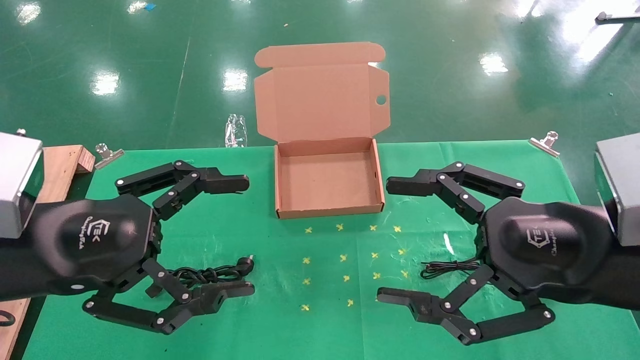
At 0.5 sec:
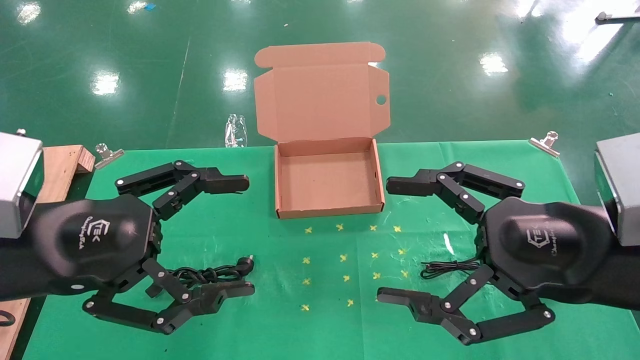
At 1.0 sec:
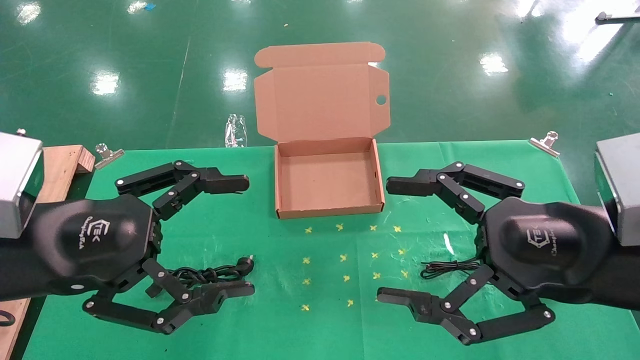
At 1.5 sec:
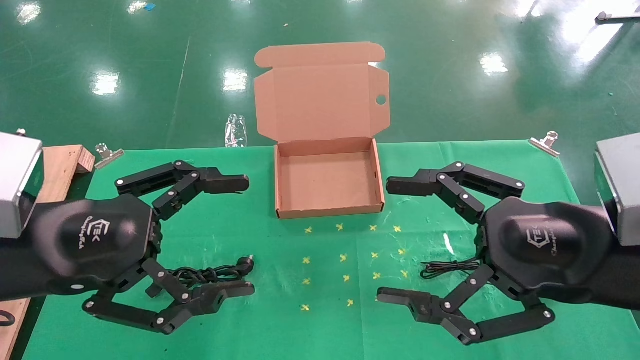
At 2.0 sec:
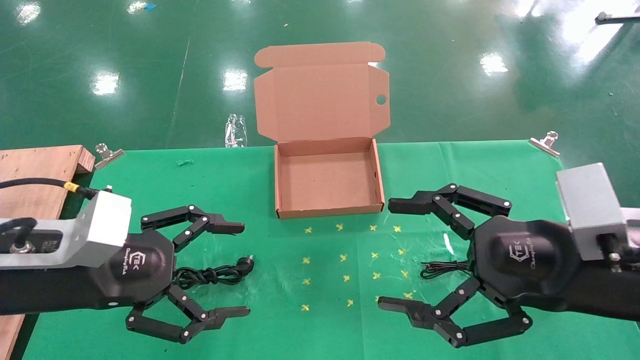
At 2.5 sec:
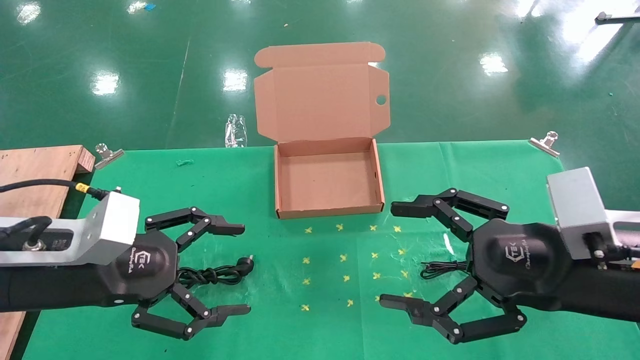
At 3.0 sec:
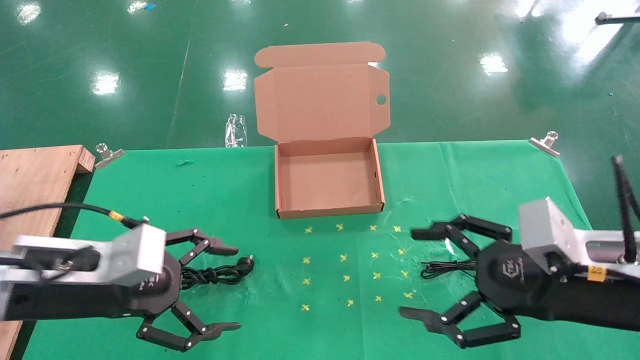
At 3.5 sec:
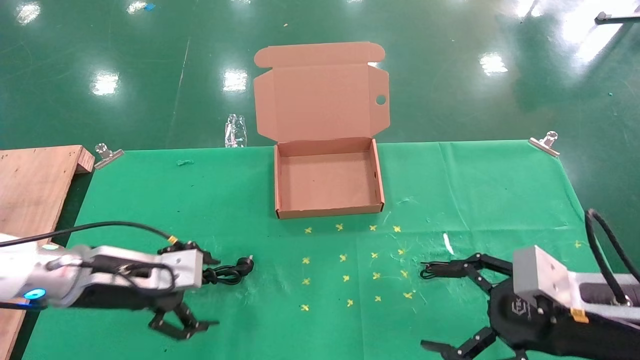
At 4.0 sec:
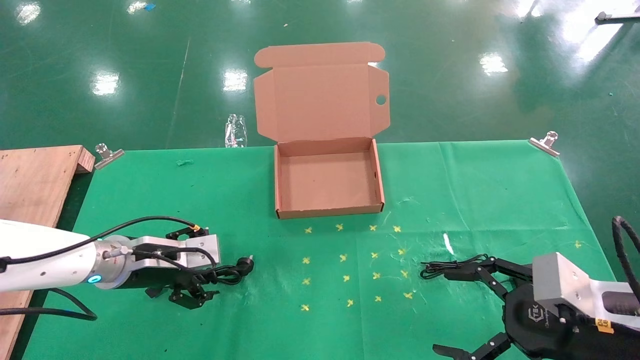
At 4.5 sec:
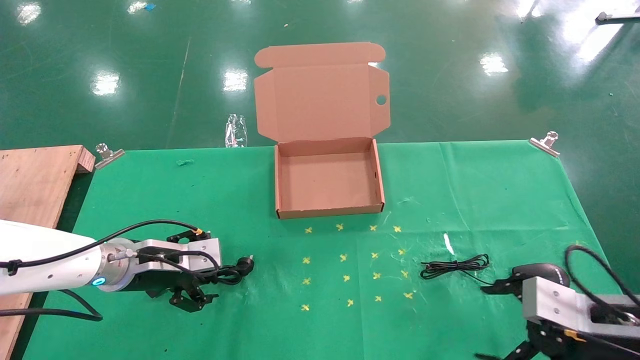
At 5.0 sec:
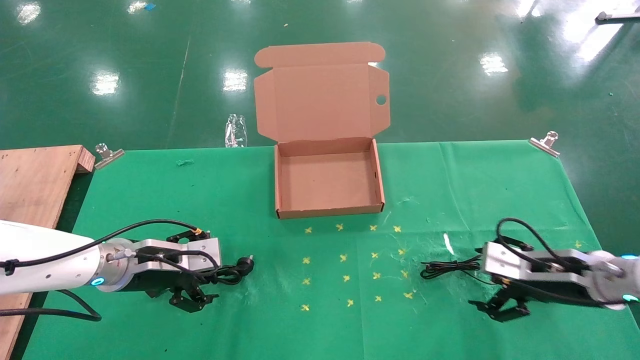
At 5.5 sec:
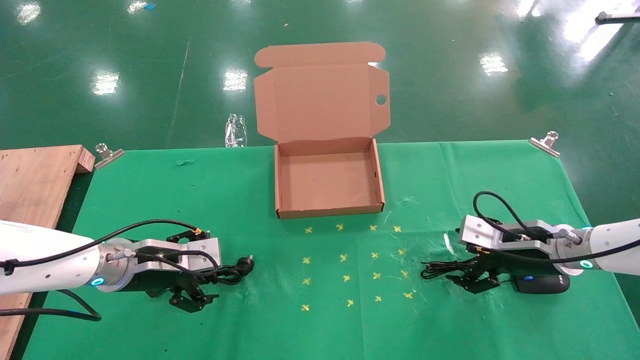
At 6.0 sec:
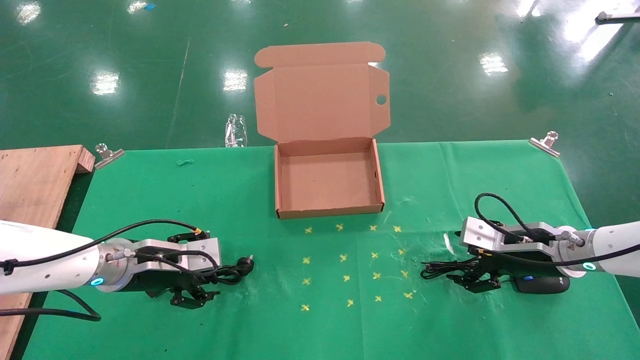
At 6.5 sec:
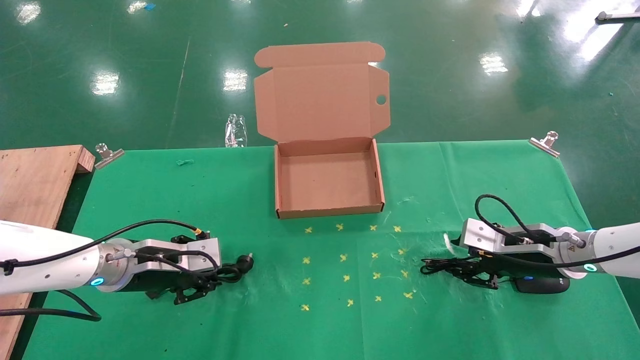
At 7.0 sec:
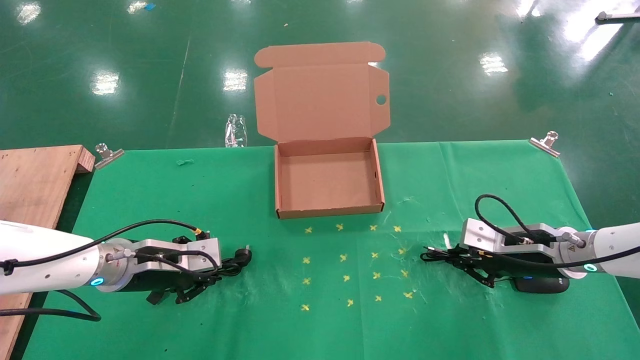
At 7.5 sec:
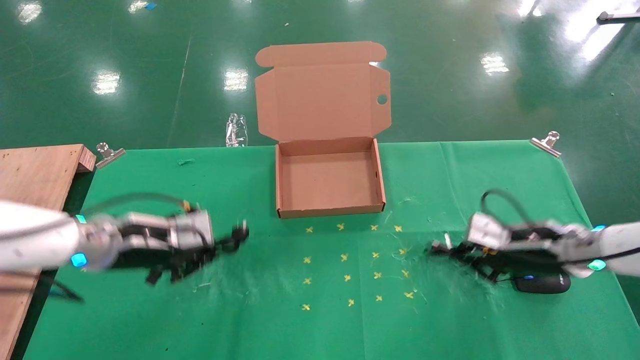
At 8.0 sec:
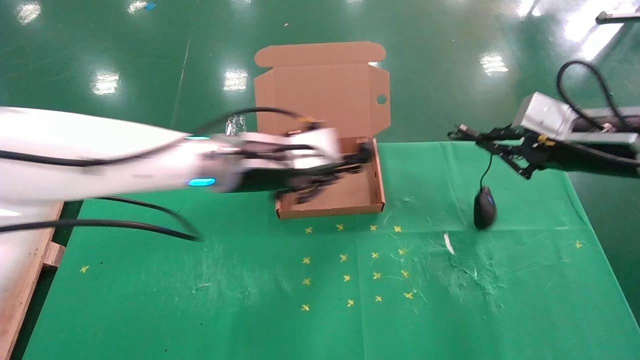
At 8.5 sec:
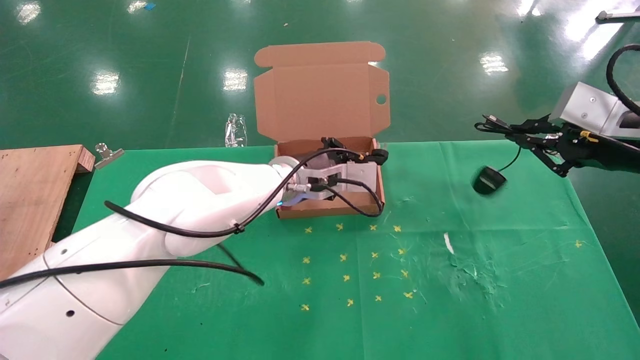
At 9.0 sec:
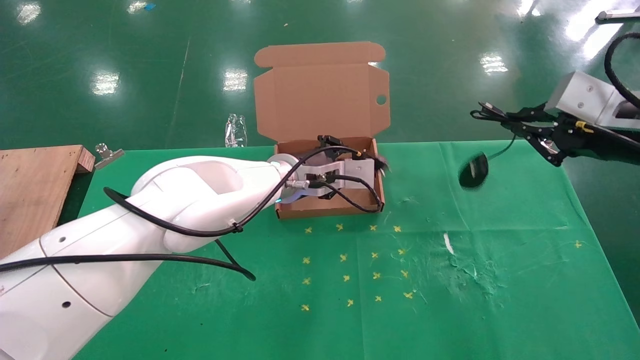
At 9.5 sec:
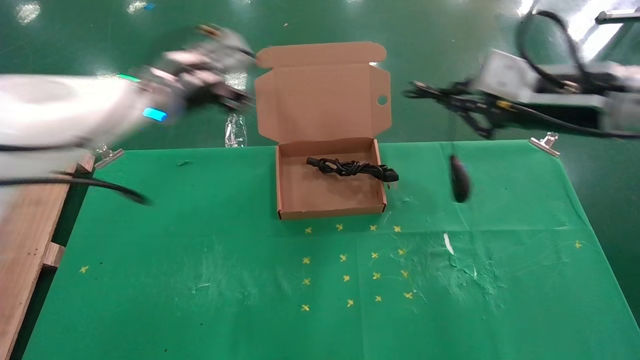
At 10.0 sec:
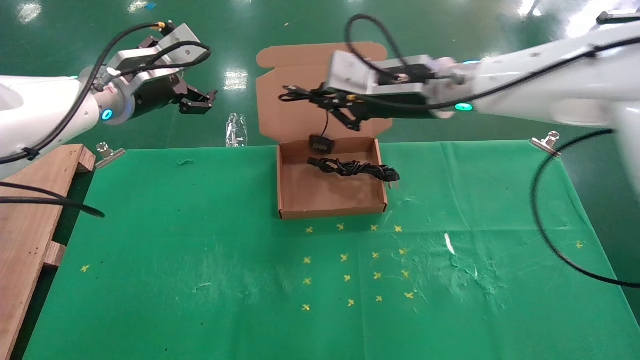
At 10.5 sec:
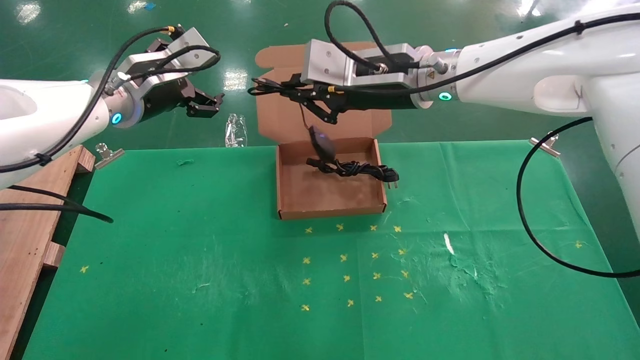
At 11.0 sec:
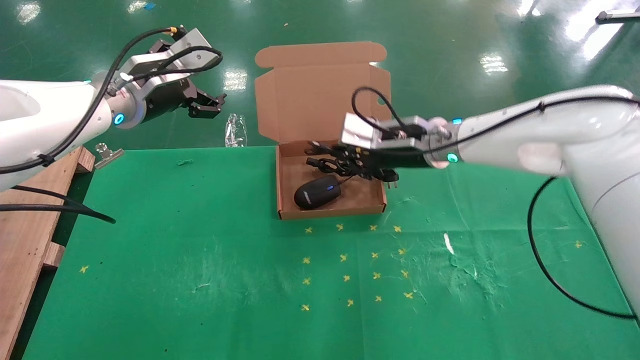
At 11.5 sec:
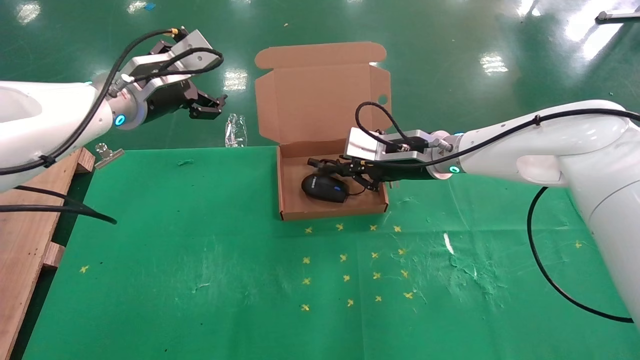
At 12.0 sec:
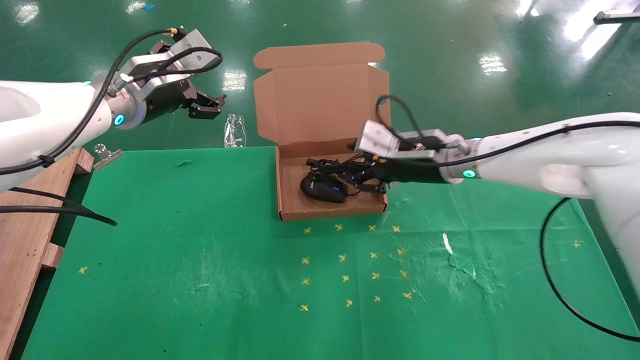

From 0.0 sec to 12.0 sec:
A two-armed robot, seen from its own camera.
Task of the whole recording: grasp data cable left put into box grasp mouse right put into box.
Step, from 2.0 sec to 7.0 sec: Simultaneously pick up the mouse and power cord from the accessory packaging area.
Step, from 7.5 sec to 11.5 sec: Place the mouse and power cord into the box.
From 2.0 sec to 4.0 sec: The right gripper moves downward and to the right, roughly 10 cm. Meanwhile the left gripper goes roughly 15 cm forward and downward.
From 4.0 sec to 6.0 sec: The right gripper moves forward, some 20 cm.
From 6.0 sec to 8.0 sec: The right gripper moves upward, about 15 cm, and closes. Meanwhile the left gripper heads to the right and upward, covering roughly 20 cm, and closes.
From 8.0 sec to 10.0 sec: The right gripper travels to the left by some 20 cm; the left gripper goes approximately 15 cm to the left and upward, and opens up.
From 10.0 sec to 12.0 sec: The right gripper heads downward, covering approximately 10 cm, and opens.

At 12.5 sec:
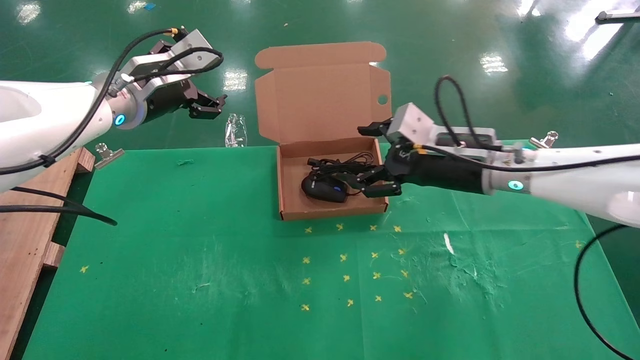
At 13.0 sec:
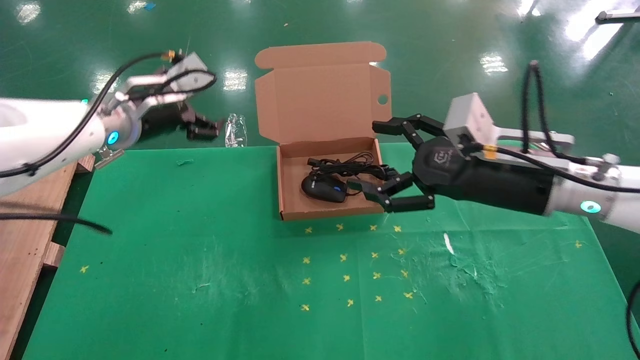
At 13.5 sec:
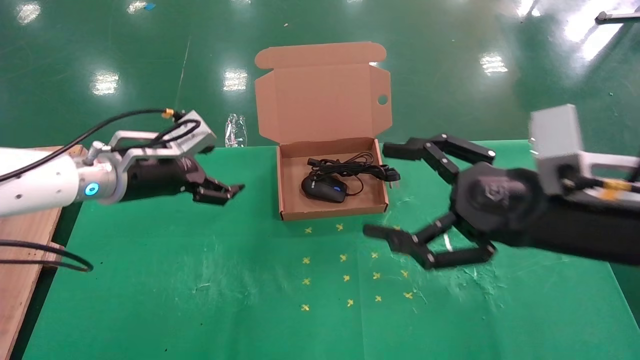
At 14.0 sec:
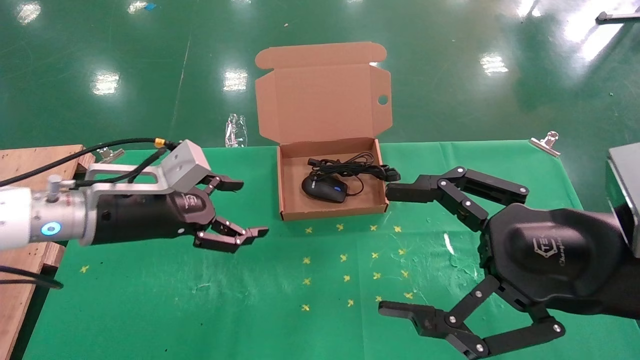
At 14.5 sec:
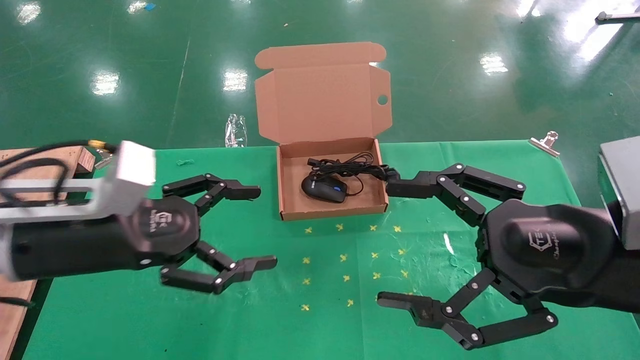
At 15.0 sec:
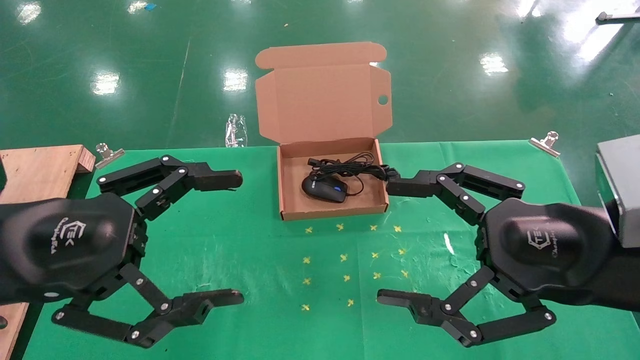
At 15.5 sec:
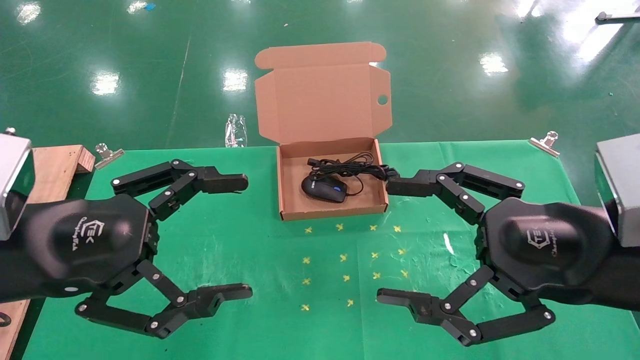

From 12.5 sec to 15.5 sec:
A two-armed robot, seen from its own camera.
Task of the whole recording: grasp data cable left put into box grasp mouse right put into box.
From 12.5 sec to 14.0 sec: The left gripper shifts about 15 cm downward and backward. The right gripper moves backward, roughly 20 cm.
From 14.0 sec to 15.5 sec: The left gripper travels backward by about 15 cm.
